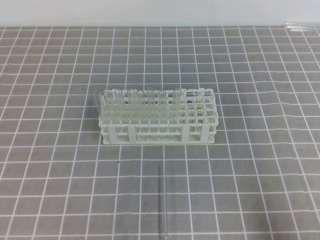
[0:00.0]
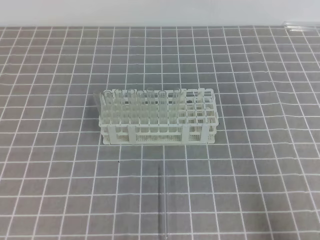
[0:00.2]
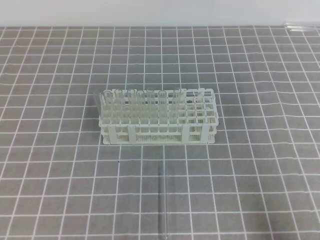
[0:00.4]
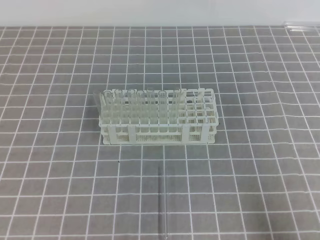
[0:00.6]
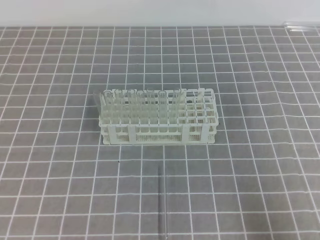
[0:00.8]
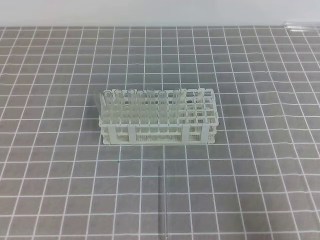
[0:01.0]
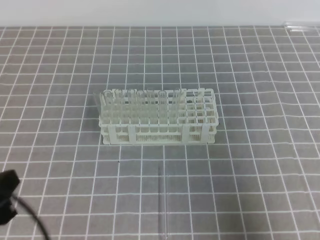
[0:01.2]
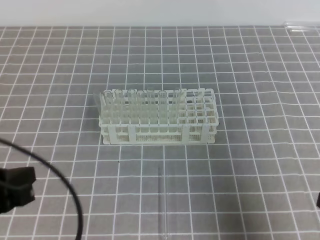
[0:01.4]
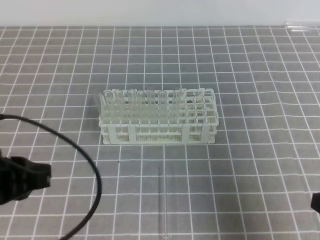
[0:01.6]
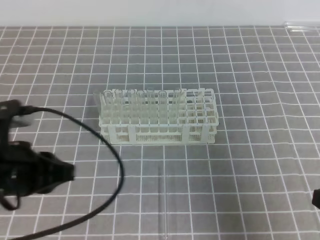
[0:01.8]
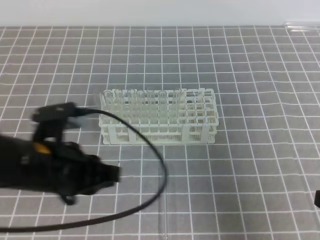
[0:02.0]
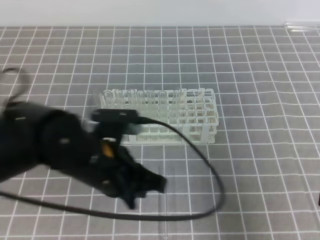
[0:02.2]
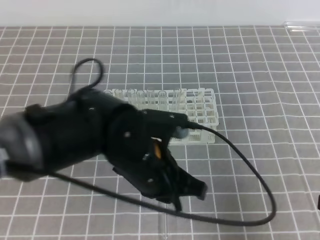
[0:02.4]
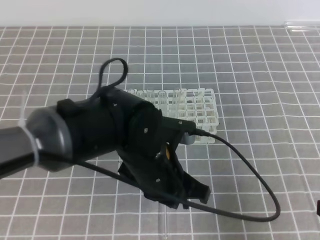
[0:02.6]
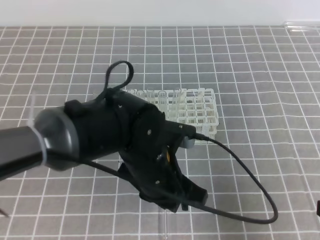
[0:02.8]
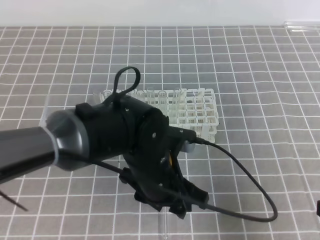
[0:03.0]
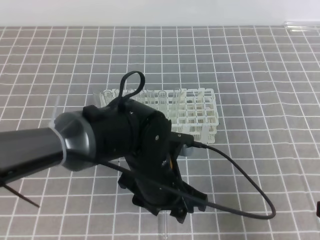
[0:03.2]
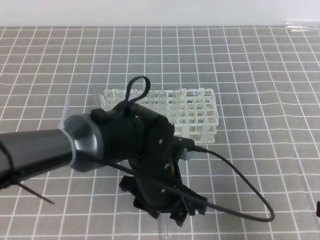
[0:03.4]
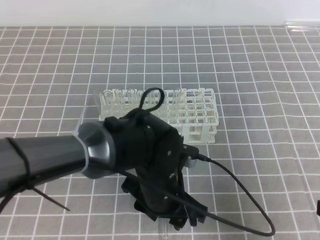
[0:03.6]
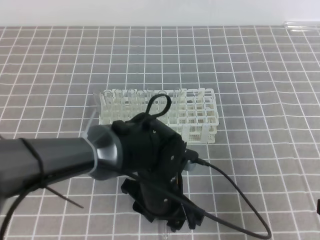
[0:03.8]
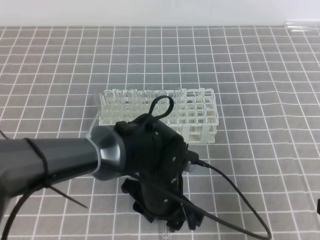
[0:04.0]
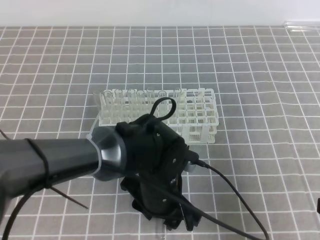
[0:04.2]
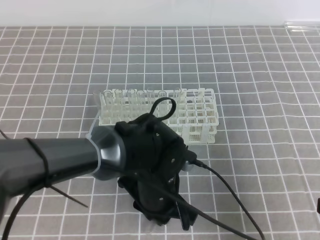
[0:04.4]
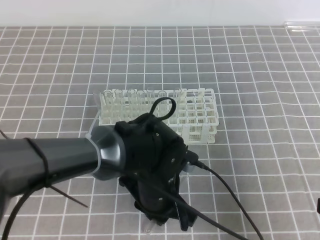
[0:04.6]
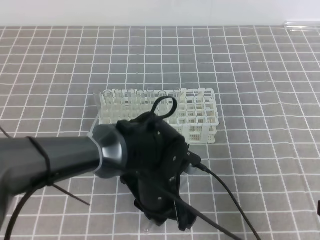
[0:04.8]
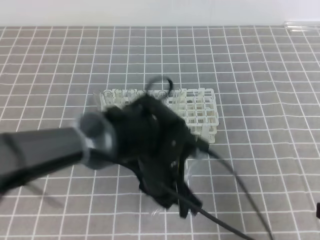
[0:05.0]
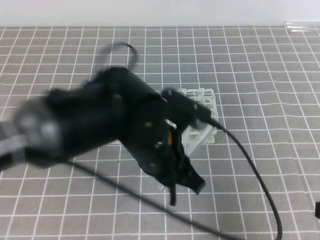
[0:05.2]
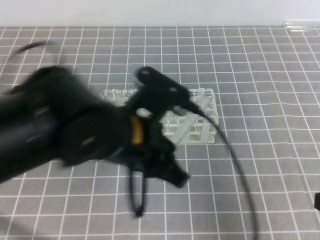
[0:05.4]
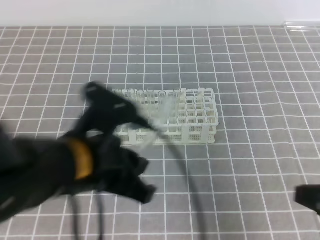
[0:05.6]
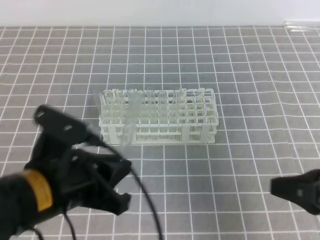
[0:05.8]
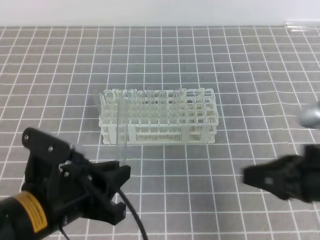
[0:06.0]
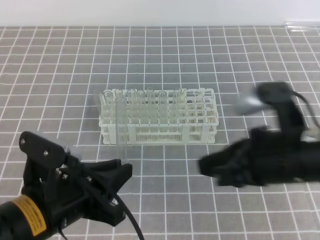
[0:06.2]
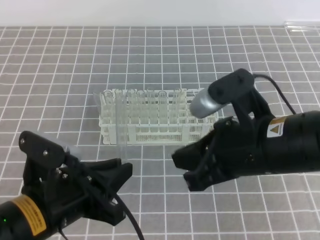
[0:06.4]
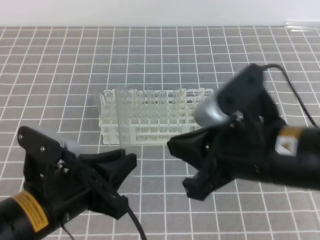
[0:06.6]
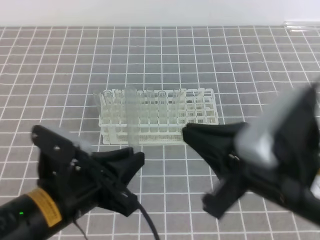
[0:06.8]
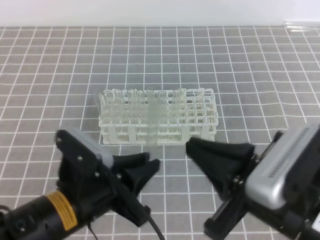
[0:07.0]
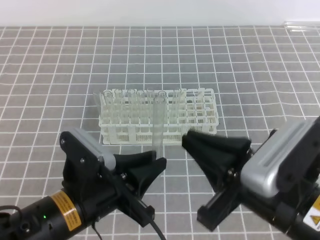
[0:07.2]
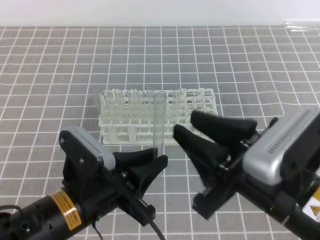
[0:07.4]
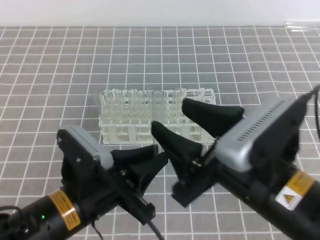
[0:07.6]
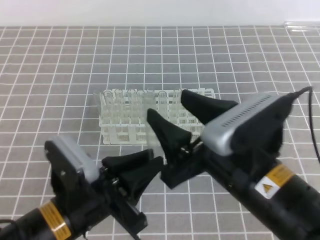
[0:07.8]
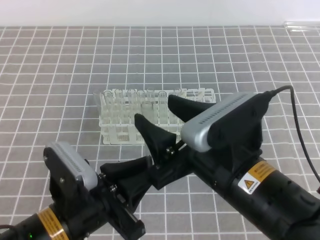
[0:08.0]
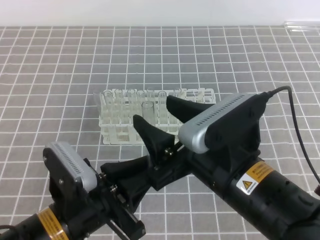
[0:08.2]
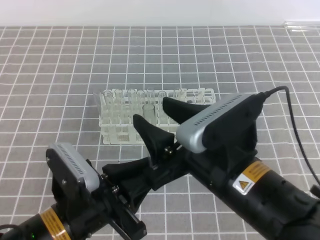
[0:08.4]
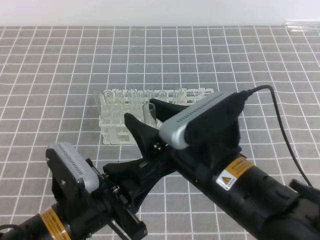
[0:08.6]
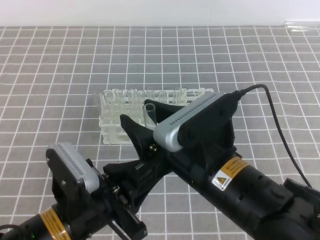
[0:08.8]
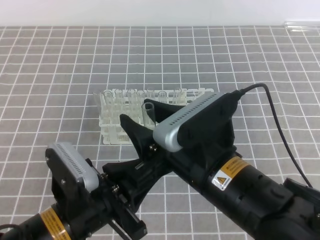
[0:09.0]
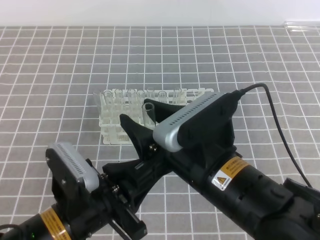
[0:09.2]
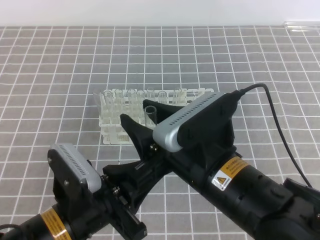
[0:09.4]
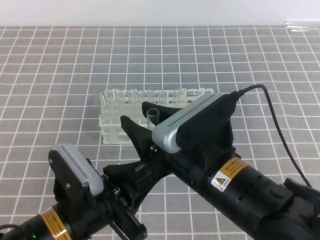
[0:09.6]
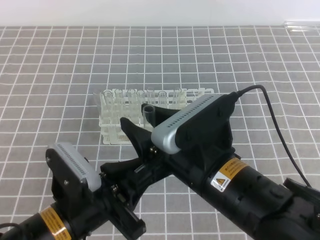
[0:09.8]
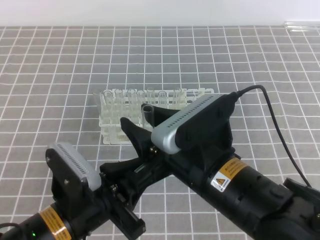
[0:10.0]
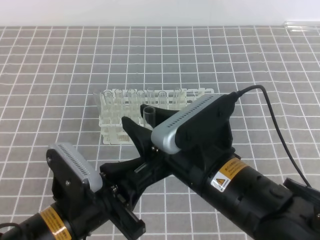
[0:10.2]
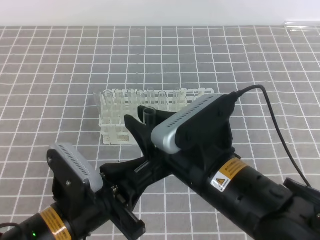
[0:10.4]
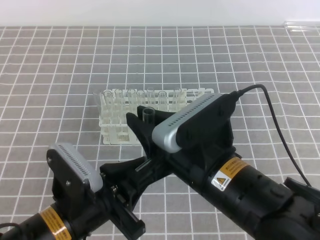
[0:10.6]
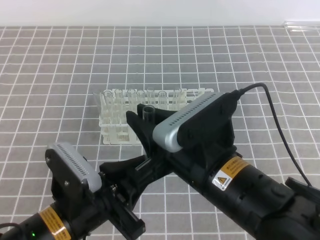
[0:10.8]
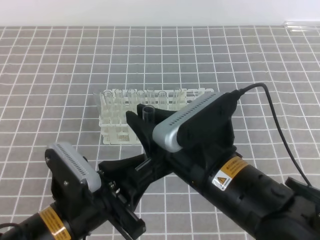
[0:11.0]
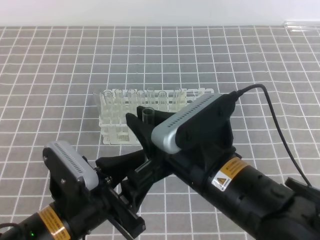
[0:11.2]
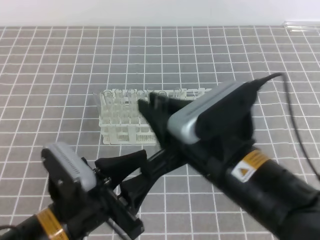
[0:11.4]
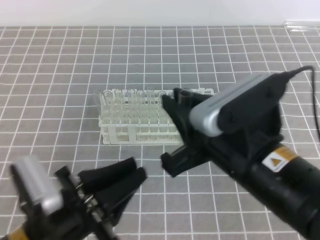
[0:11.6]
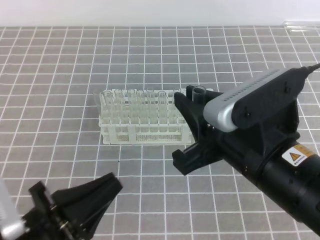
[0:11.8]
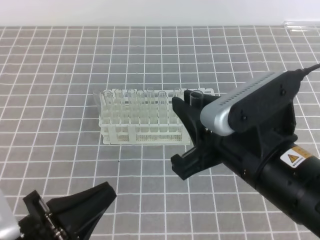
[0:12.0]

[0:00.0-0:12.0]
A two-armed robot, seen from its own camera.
0:00.0 to 0:01.6: The left gripper travels forward and upward by some 10 cm, while the right gripper is displaced upward by roughly 5 cm.
0:01.6 to 0:03.0: The left gripper travels to the right by some 20 cm, and opens up.
0:03.0 to 0:04.4: The left gripper is displaced downward by roughly 5 cm.
0:04.4 to 0:06.0: The left gripper heads to the left, upward and backward, covering about 20 cm; the right gripper heads to the left and forward, covering roughly 10 cm.
0:06.0 to 0:07.6: The right gripper travels to the left by about 10 cm, and opens up.
0:07.6 to 0:09.0: The right gripper is displaced to the left by approximately 5 cm.
0:09.0 to 0:10.4: The right gripper closes its fingers.
0:10.4 to 0:12.0: The right gripper ends up some 5 cm from where it was. Meanwhile the left gripper heads backward and to the left, covering roughly 5 cm, and opens, then closes again.

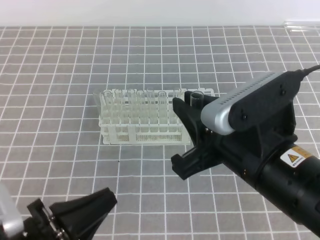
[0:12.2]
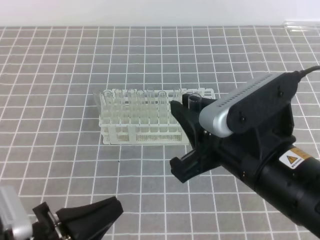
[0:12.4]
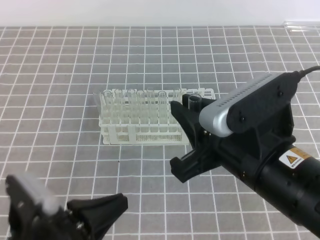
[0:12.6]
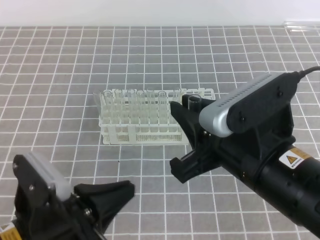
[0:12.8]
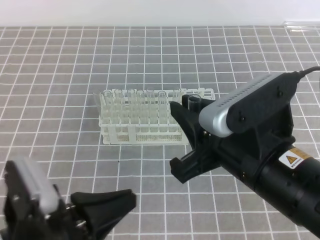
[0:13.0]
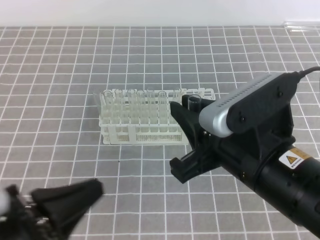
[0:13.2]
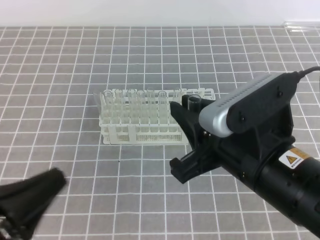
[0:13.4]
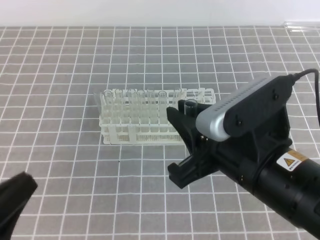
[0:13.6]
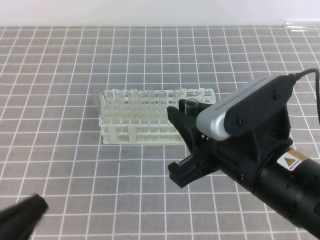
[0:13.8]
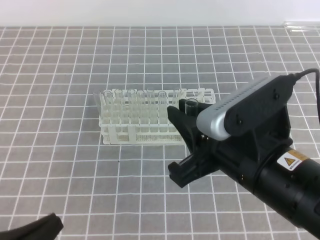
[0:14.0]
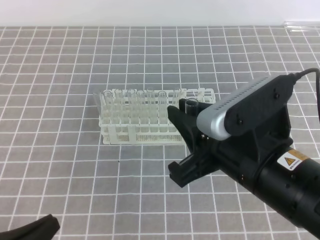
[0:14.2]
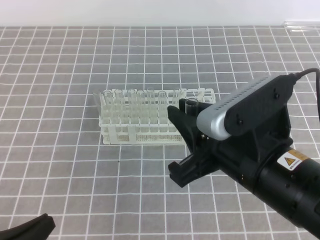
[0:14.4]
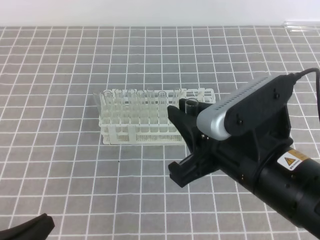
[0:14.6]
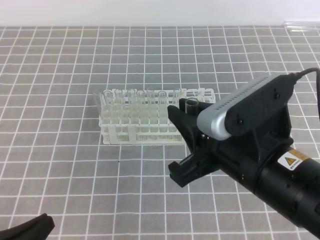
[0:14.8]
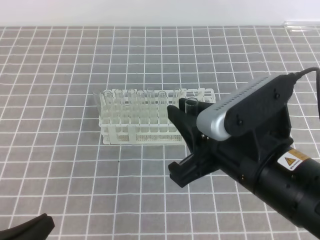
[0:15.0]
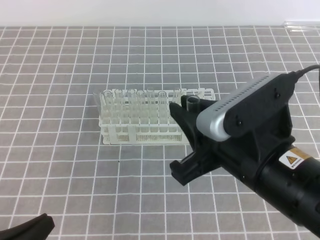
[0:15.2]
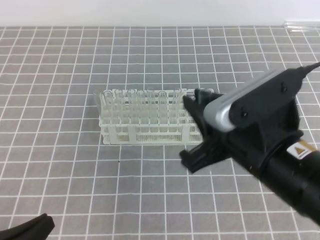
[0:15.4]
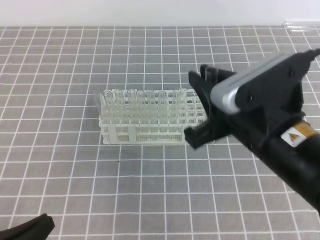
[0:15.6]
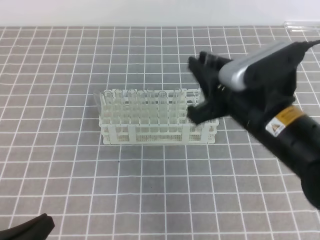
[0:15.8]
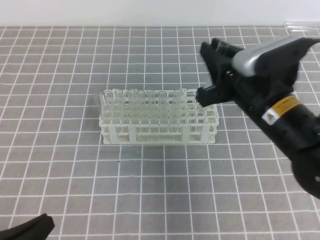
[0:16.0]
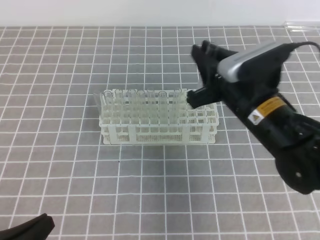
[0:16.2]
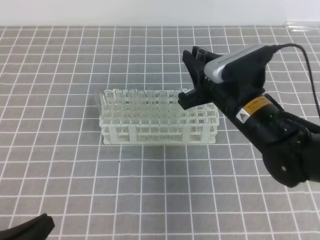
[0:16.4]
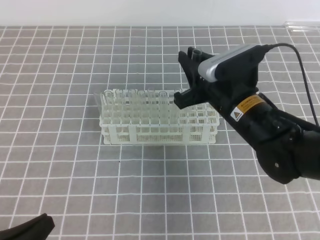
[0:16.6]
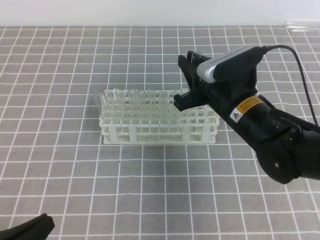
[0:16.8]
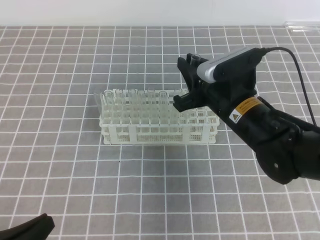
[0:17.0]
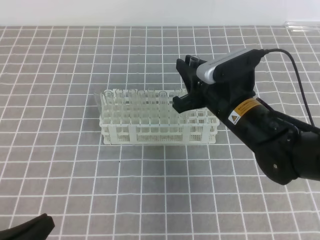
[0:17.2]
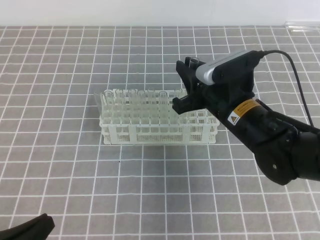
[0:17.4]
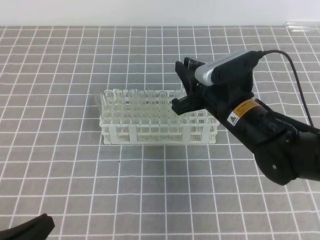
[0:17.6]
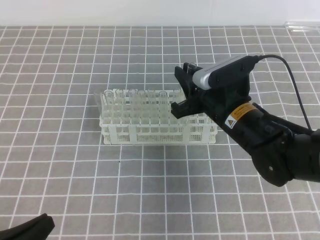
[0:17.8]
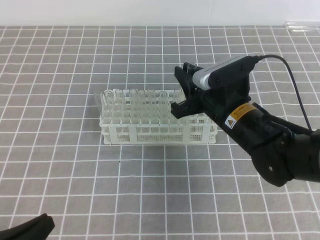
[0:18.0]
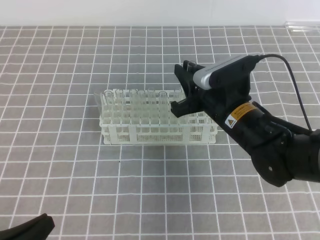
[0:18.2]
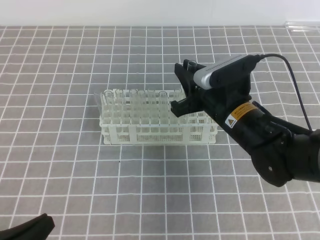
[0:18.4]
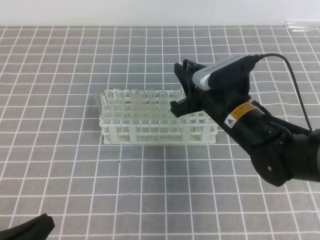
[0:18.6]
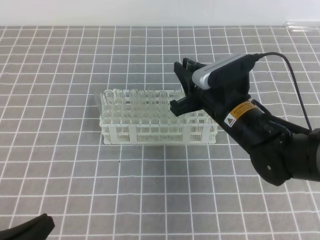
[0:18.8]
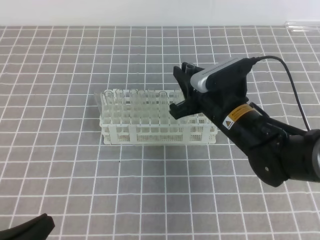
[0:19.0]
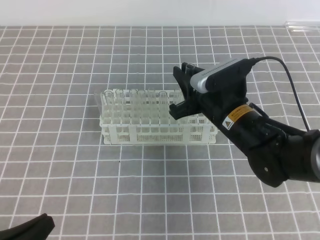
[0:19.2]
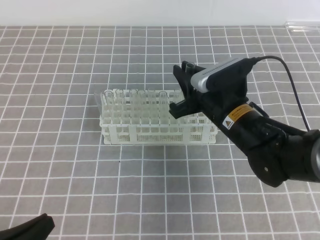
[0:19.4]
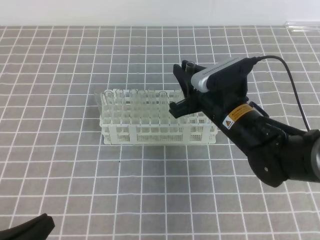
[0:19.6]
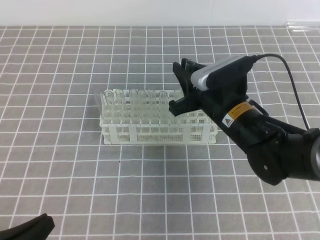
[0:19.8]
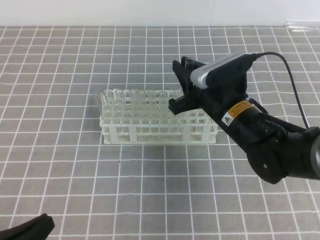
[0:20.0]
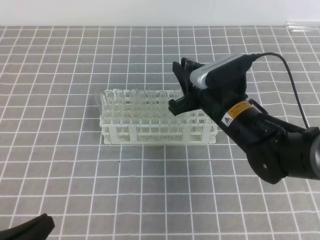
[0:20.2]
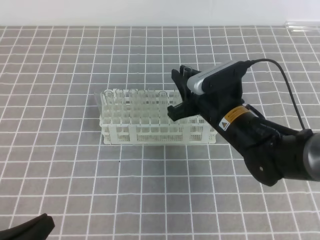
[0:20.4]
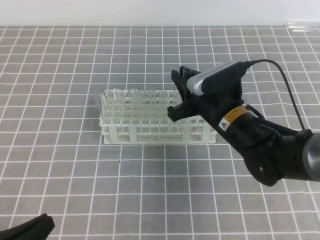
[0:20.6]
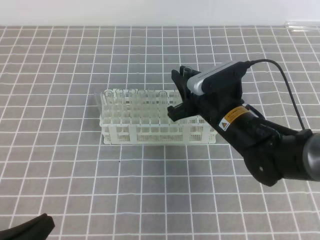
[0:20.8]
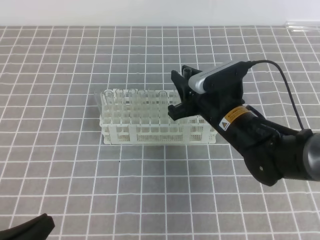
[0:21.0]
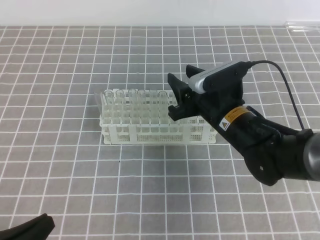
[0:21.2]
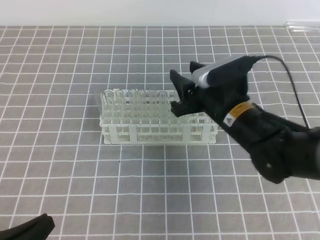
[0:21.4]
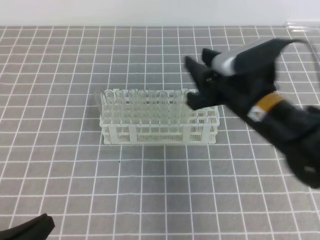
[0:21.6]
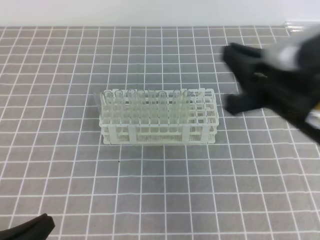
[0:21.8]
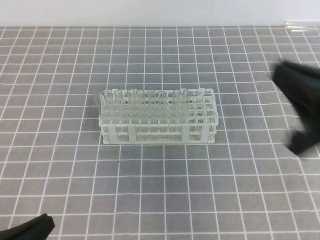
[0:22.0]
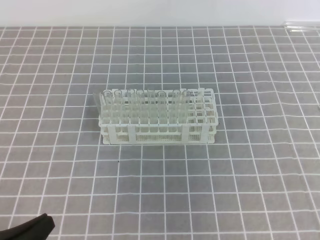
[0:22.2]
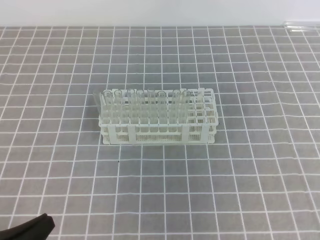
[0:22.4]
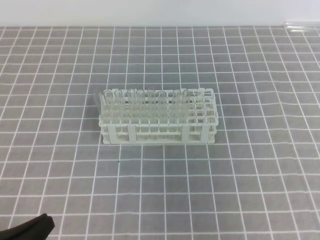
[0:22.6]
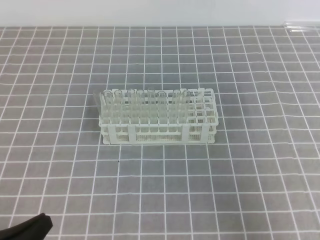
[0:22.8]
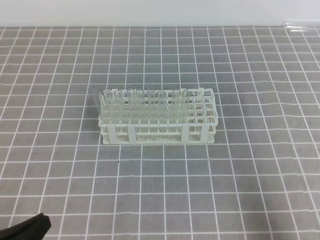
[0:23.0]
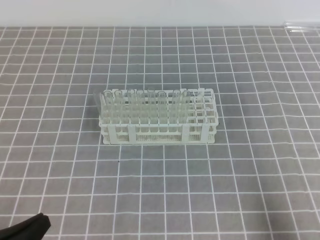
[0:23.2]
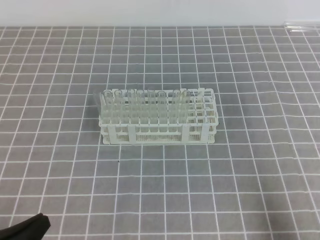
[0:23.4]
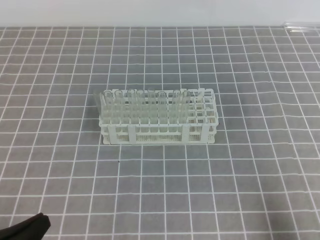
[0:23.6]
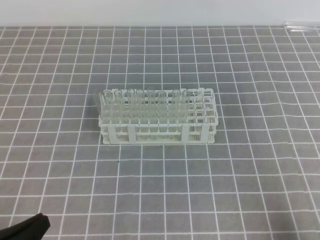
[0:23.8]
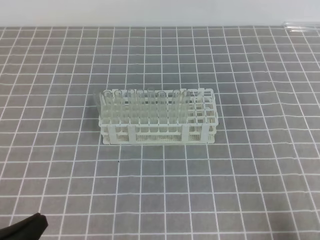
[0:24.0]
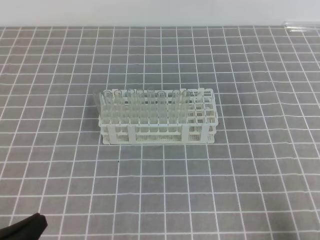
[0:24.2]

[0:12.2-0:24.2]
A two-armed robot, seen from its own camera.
0:12.2 to 0:13.8: The left gripper goes some 5 cm to the left.
0:13.8 to 0:15.2: The left gripper is displaced downward by some 5 cm.
0:15.2 to 0:16.6: The right gripper travels forward and downward by some 15 cm.
0:16.6 to 0:18.2: There are only small adjustments of the grippers.
0:18.2 to 0:19.8: Neither gripper changes place.
0:19.8 to 0:21.2: The right gripper opens up.
0:21.2 to 0:22.6: The right gripper moves backward, to the right and upward, roughly 30 cm, and closes its fingers.
0:22.6 to 0:24.2: The right gripper moves downward, about 15 cm.
